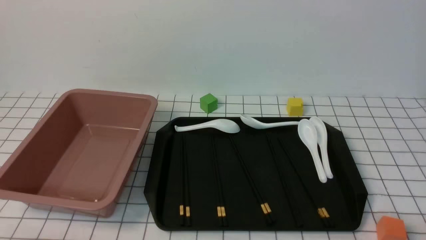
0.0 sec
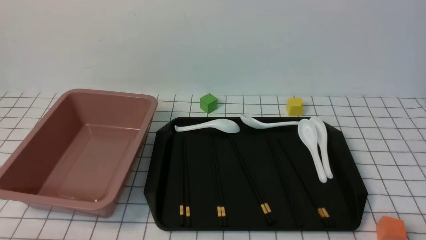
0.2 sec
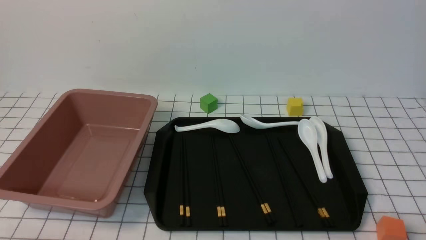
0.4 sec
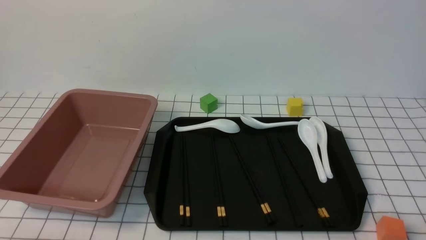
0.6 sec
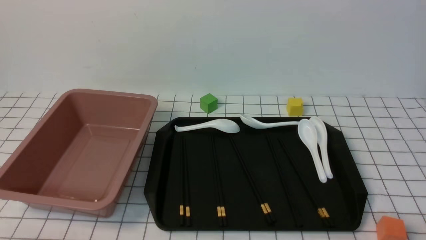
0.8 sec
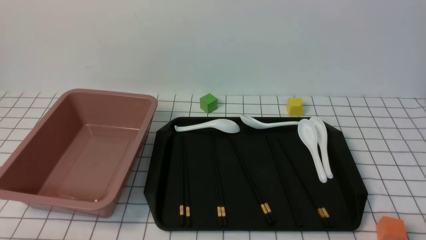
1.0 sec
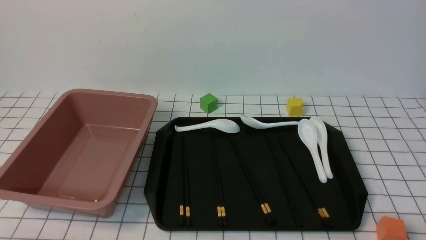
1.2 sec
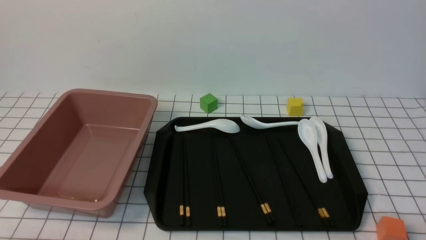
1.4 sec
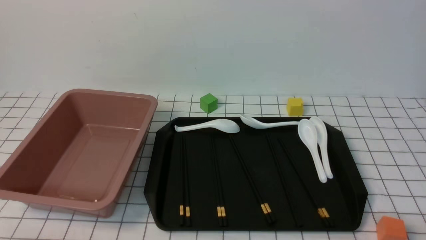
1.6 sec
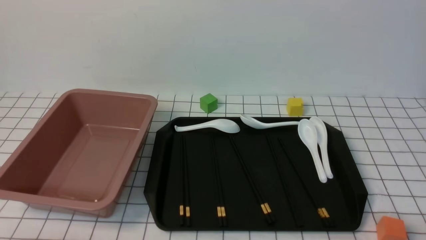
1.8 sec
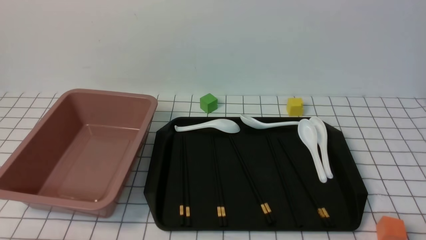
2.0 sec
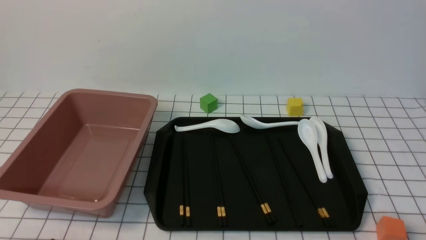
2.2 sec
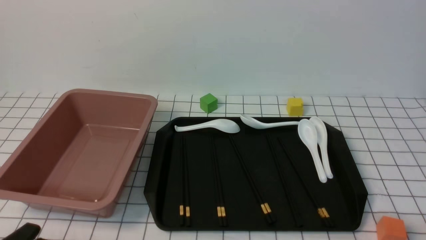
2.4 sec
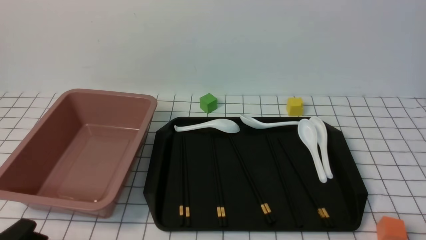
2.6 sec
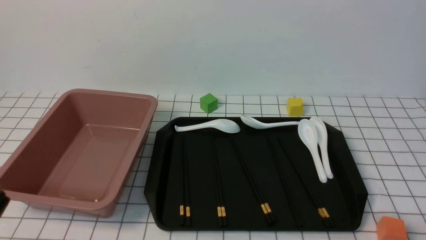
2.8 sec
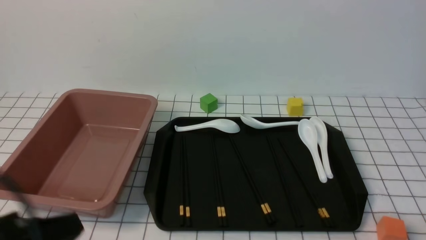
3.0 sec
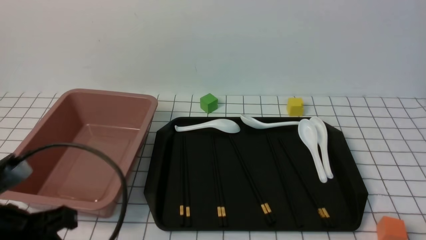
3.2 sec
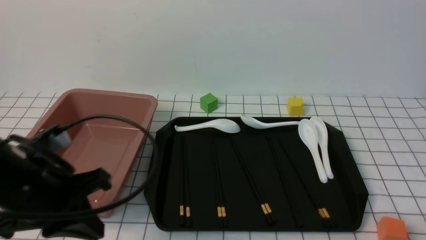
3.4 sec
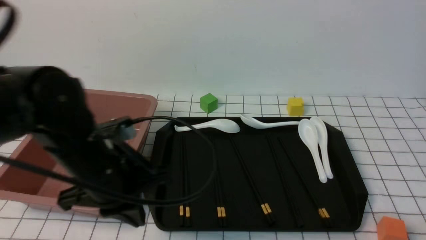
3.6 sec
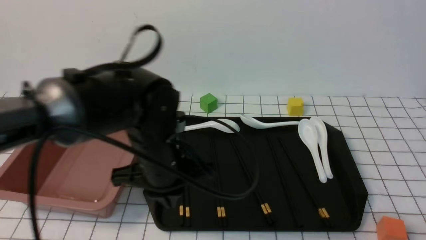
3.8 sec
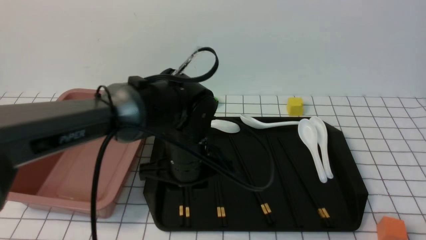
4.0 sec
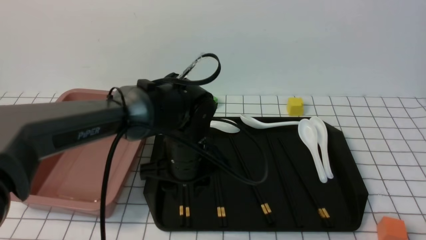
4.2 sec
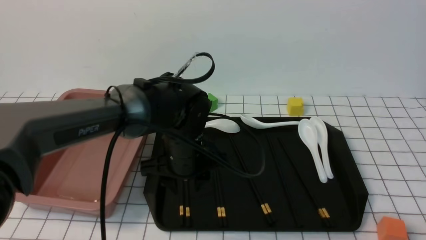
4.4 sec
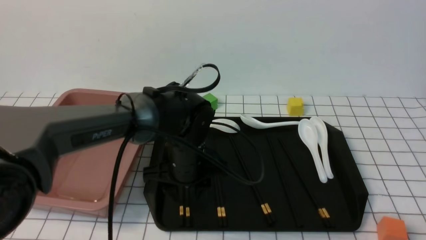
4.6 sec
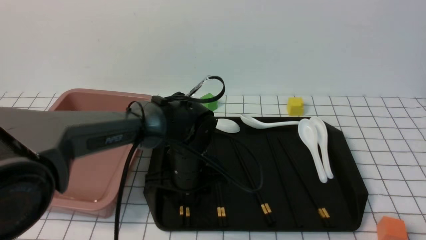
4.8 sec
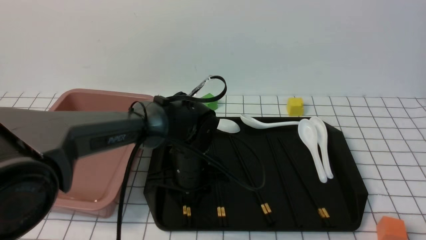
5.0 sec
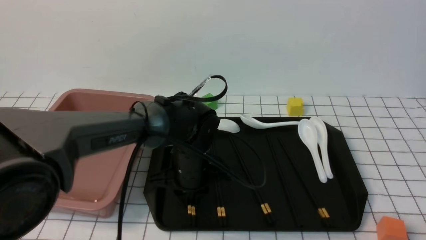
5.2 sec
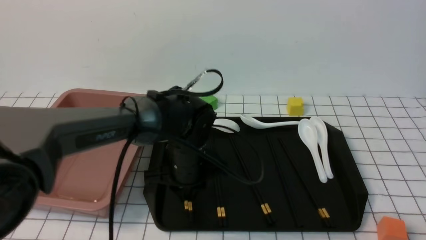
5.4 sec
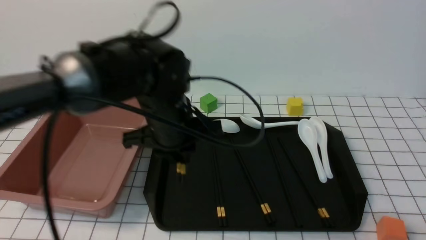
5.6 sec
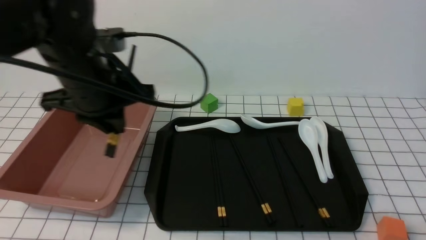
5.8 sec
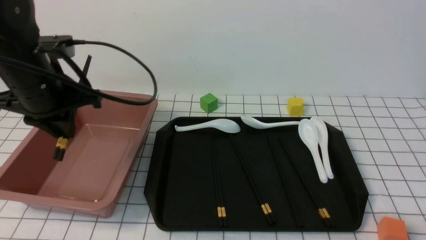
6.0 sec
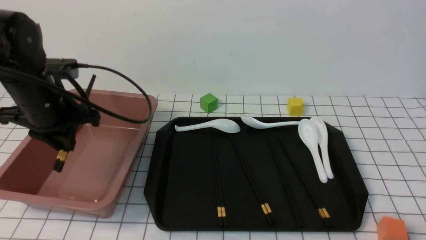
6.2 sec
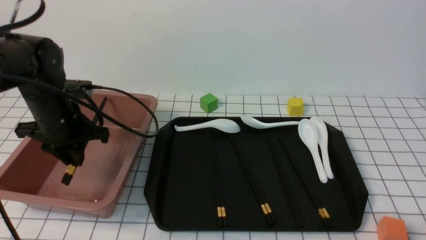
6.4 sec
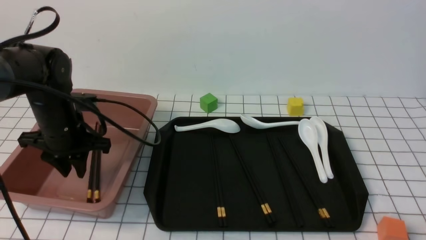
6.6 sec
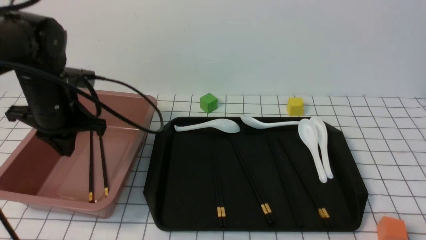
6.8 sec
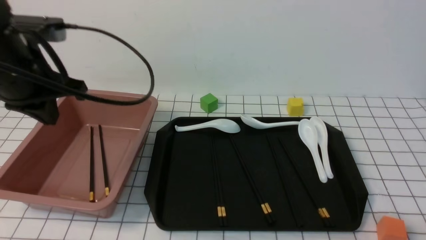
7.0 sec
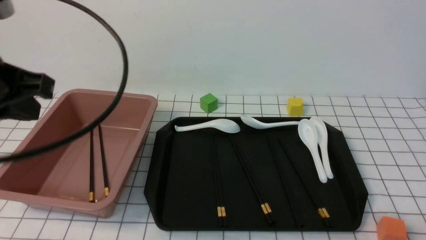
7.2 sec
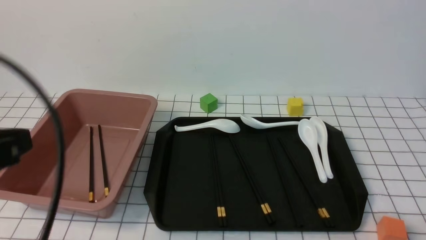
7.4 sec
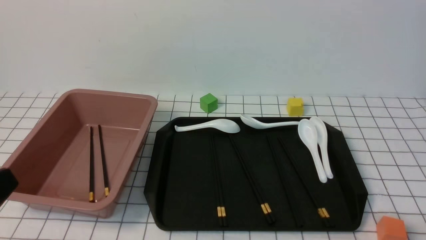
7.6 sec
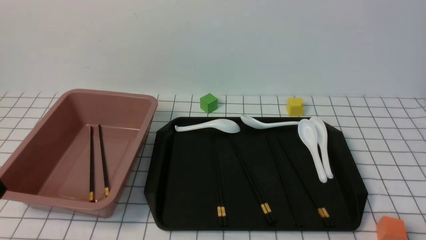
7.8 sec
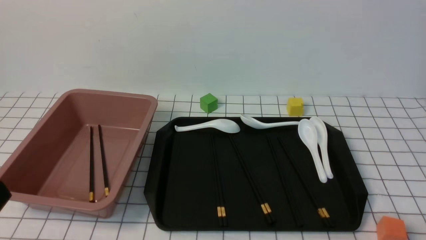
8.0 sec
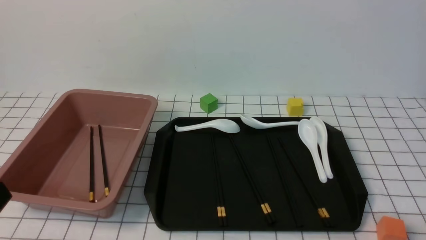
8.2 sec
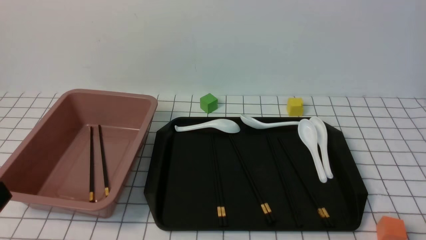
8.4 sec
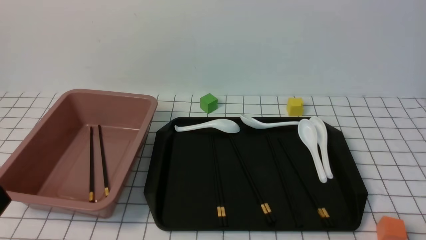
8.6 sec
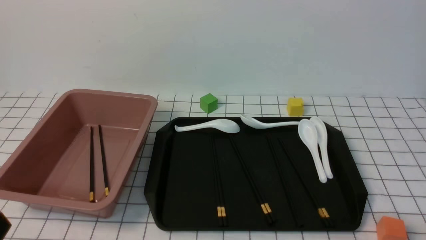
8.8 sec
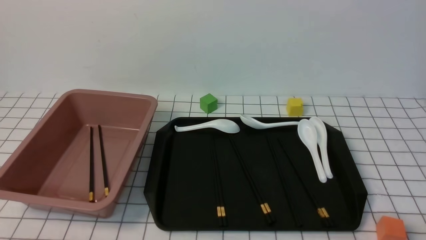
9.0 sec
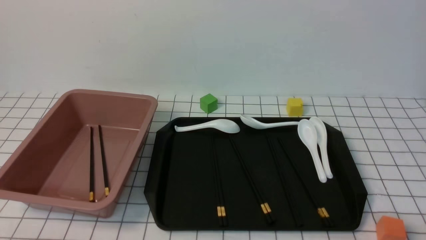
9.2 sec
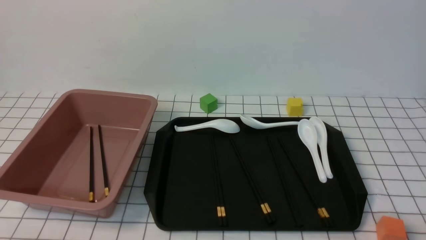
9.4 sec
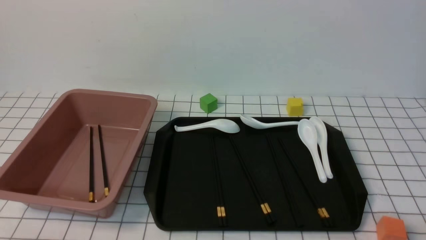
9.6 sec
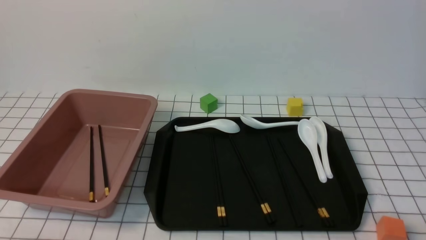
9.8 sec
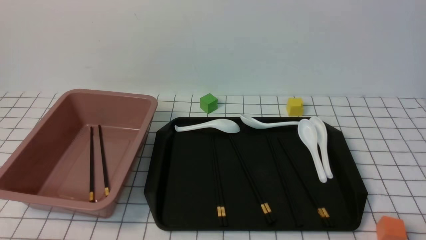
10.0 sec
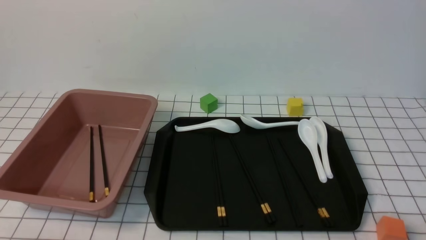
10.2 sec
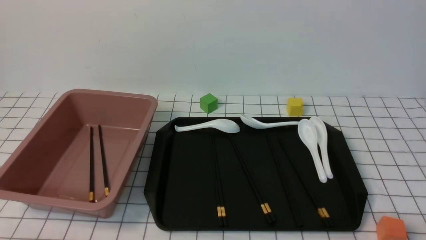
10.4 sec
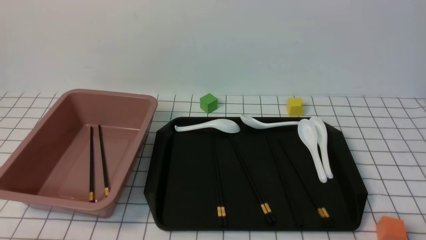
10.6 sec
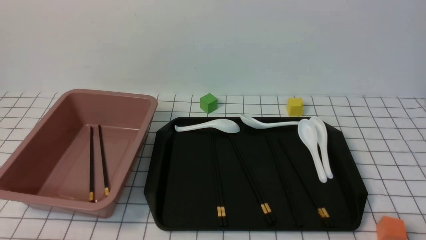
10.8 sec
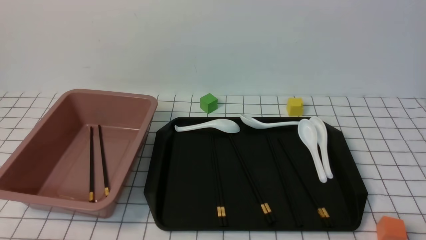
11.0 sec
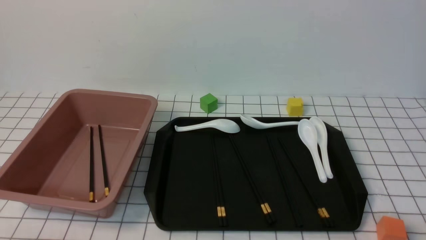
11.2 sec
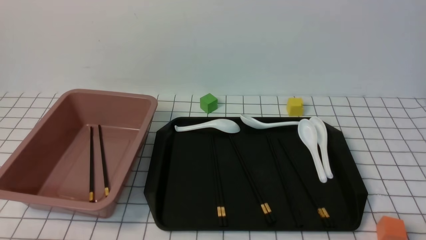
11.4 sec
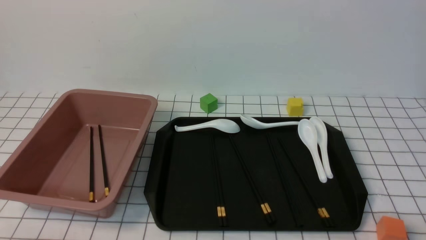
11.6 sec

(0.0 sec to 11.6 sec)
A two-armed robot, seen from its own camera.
Step, 0.0 sec - 5.6 sec: use the left arm to grab a pair of chopsticks.
Step, 5.8 sec - 6.8 sec: use the left arm to put the chopsticks into the lunch box.
2.8 sec - 4.4 sec: The left gripper heads forward and to the right, covering some 35 cm, and opens its fingers. The right gripper opens its fingers.
4.4 sec - 5.8 sec: The left gripper is displaced upward and to the left by some 15 cm, and closes up.
5.8 sec - 7.2 sec: The left gripper shifts some 15 cm to the left, backward and upward, and closes.
7.2 sec - 8.8 sec: The left gripper travels backward and downward by some 25 cm.
10.2 sec - 11.6 sec: Both grippers stay about where they are.

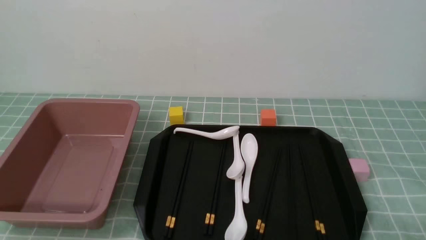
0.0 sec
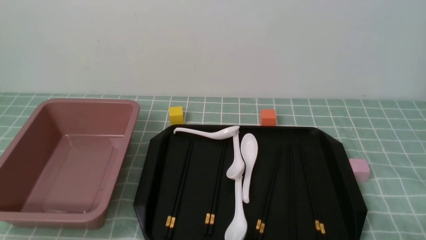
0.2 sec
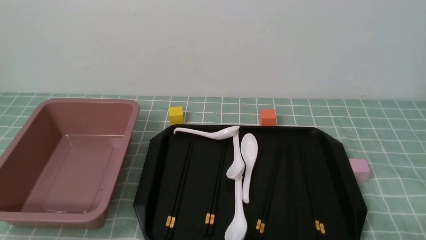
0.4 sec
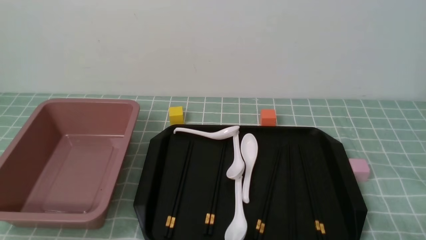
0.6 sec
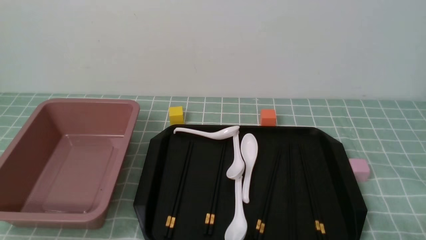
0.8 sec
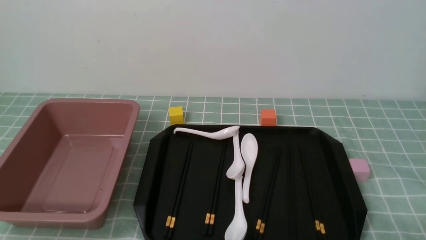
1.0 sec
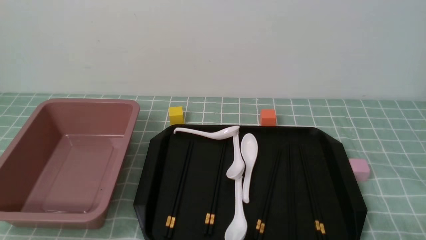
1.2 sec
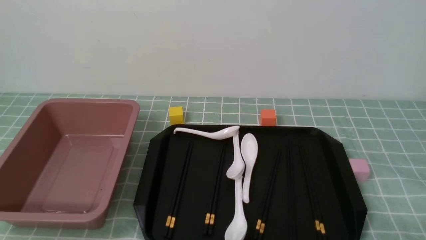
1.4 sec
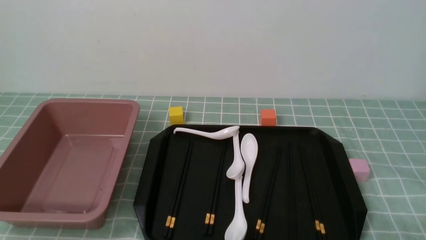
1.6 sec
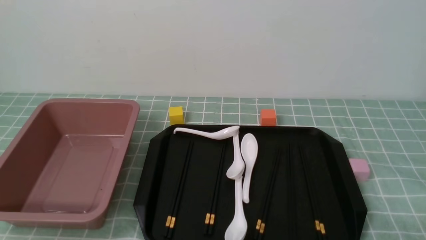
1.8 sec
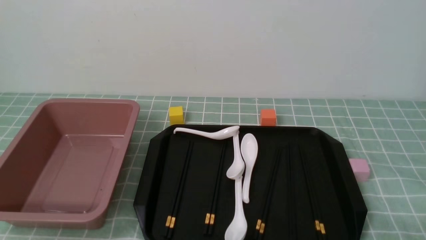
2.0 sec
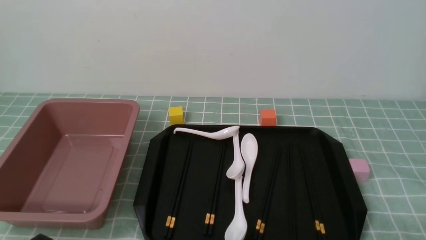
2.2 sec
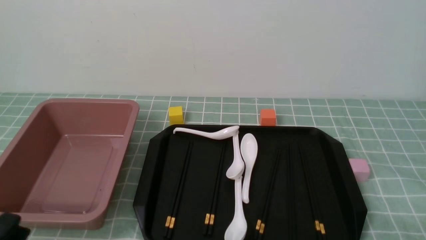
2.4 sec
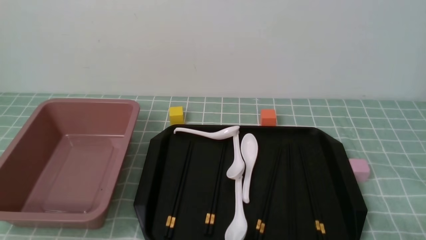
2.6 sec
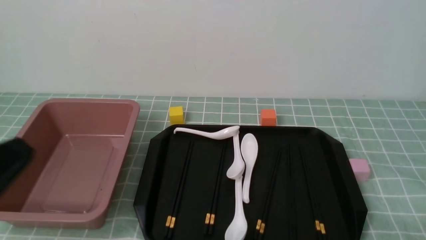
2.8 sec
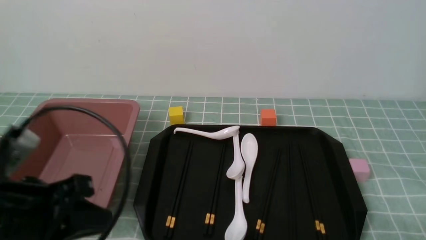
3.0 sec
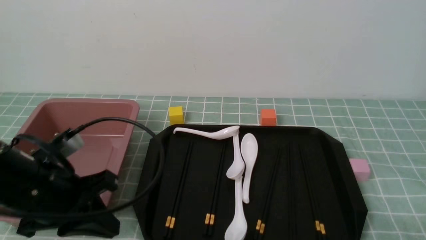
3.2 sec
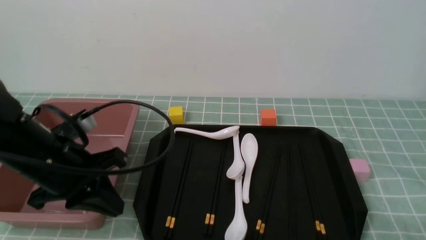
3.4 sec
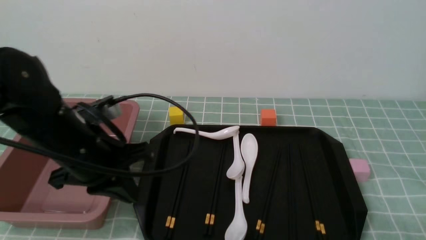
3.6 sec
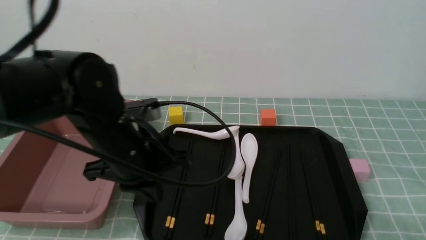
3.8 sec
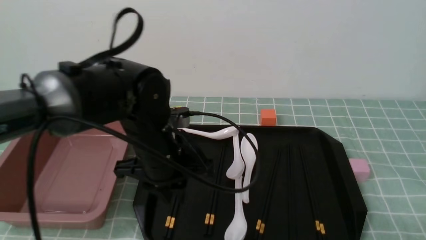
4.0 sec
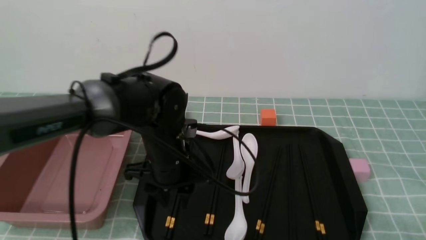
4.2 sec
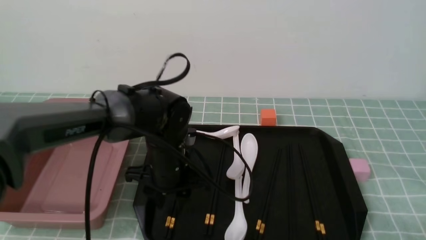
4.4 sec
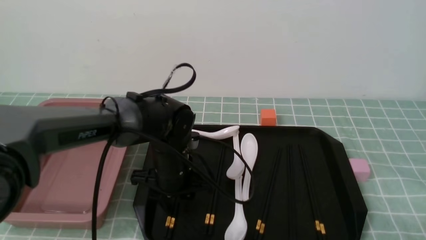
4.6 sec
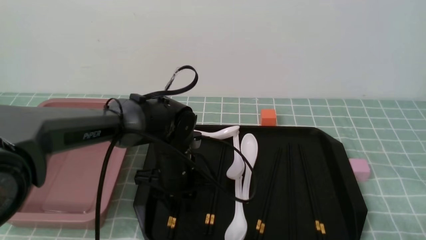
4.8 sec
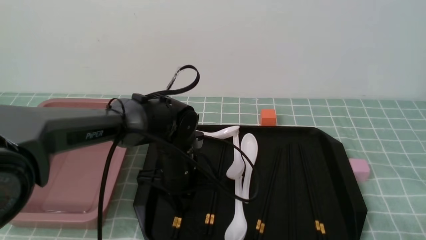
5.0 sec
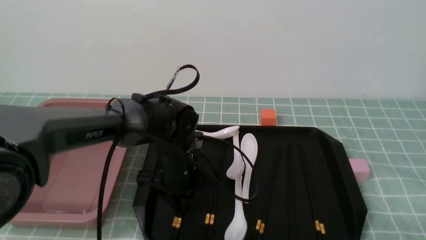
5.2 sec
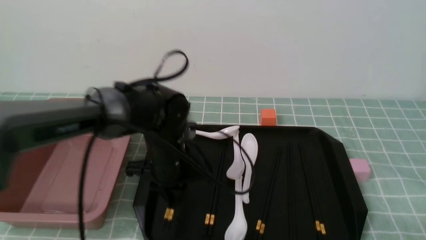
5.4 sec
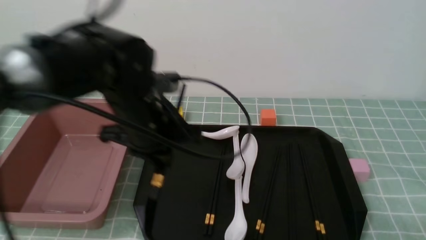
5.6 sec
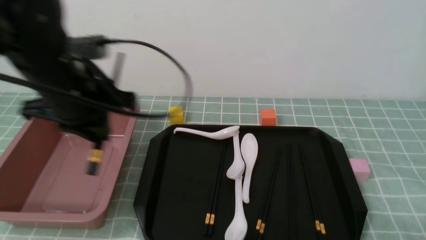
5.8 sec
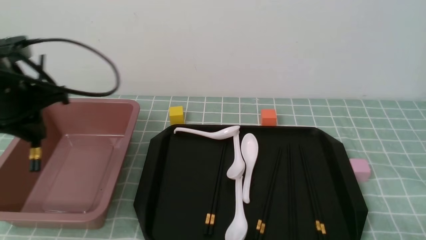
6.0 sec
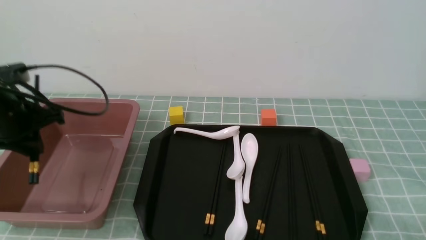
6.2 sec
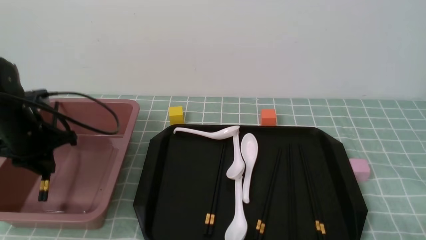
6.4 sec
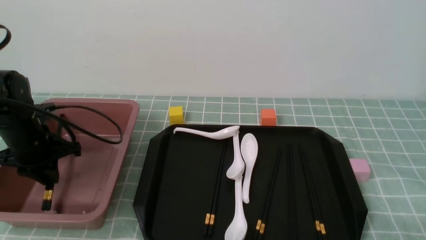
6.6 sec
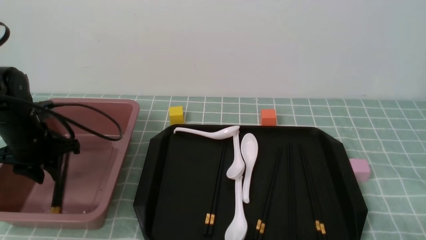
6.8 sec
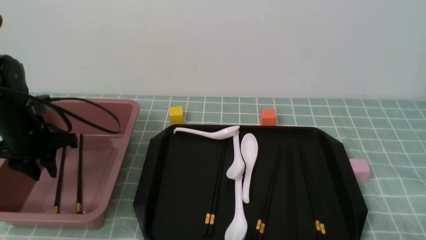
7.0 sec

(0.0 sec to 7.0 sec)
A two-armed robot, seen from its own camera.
Step, 0.0 sec - 5.6 sec: use the left arm to grab a pair of chopsticks.
0.0 sec - 1.4 sec: Both grippers stay about where they are.
1.4 sec - 2.8 sec: The left gripper is displaced upward by some 15 cm, and closes its fingers.
2.8 sec - 4.2 sec: The left gripper moves forward, to the right and downward, roughly 30 cm, and opens.
4.2 sec - 5.6 sec: The left gripper travels upward and to the left by approximately 10 cm, and closes up.
5.6 sec - 7.0 sec: The left gripper goes roughly 20 cm to the left.
